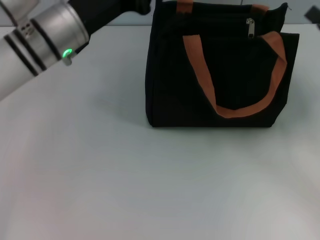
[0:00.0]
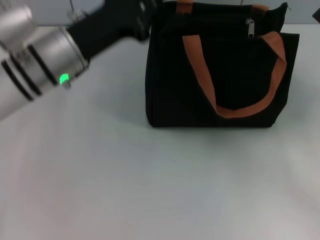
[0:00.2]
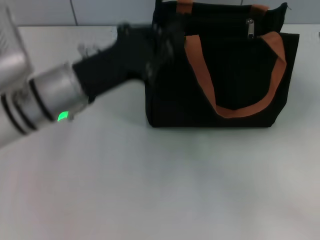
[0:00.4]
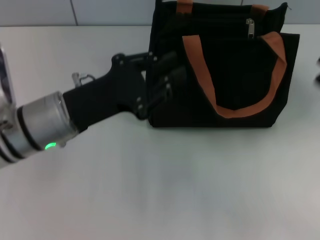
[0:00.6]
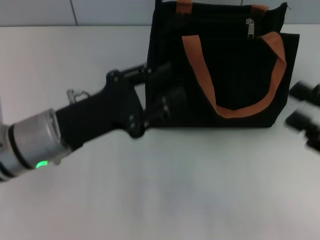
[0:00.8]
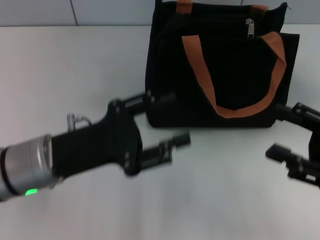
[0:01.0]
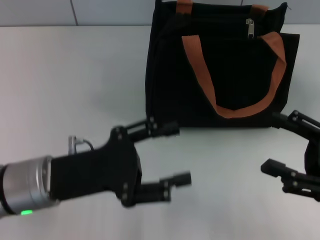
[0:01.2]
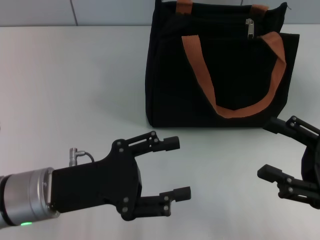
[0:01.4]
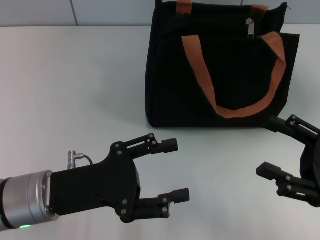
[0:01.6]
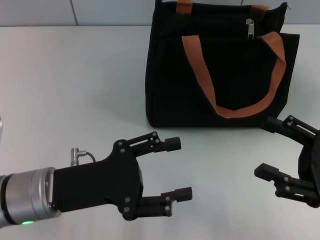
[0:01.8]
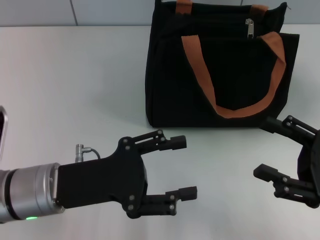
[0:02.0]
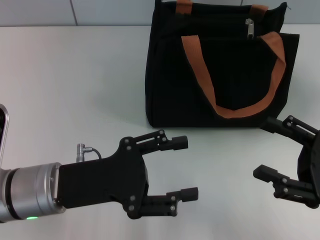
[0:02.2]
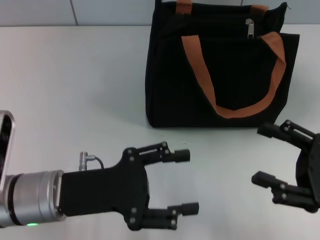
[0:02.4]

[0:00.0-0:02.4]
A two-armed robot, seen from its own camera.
0:00.0 to 0:01.2: The left gripper heads backward and downward, covering some 15 cm, and opens. The right gripper heads backward, covering some 10 cm, and opens up.
0:01.2 to 0:02.4: The grippers make only small movements.
